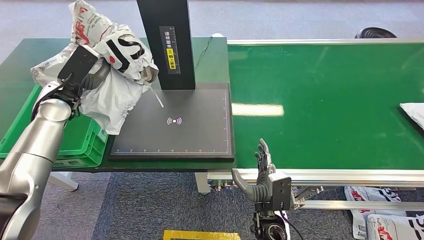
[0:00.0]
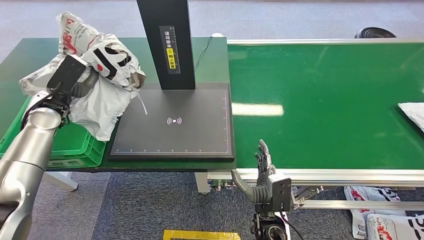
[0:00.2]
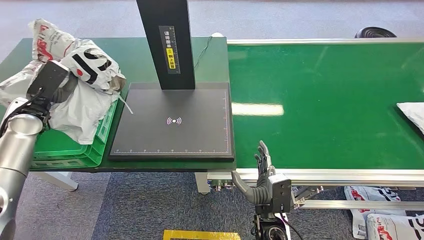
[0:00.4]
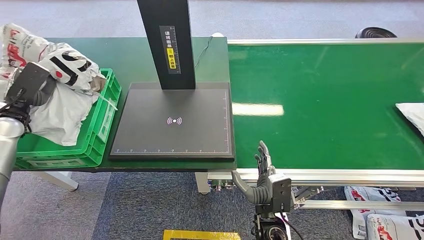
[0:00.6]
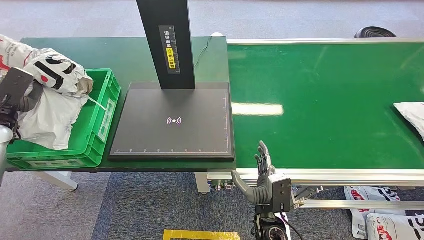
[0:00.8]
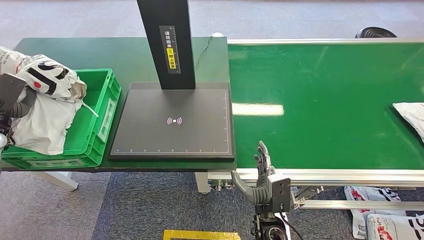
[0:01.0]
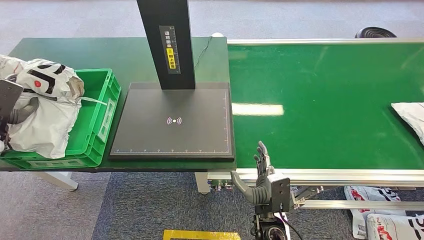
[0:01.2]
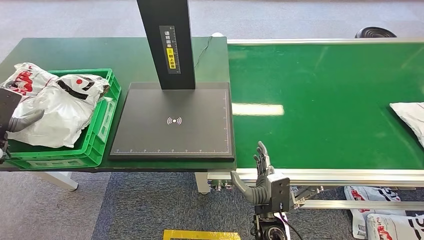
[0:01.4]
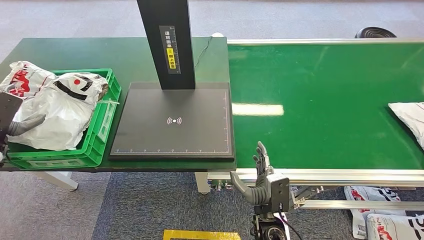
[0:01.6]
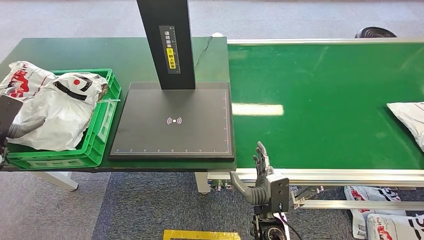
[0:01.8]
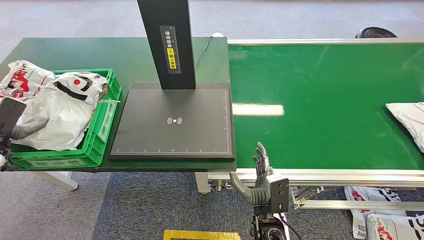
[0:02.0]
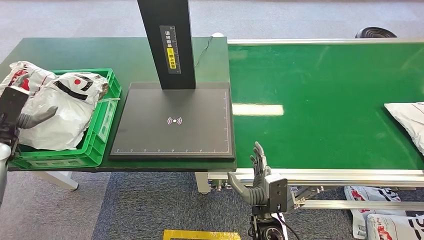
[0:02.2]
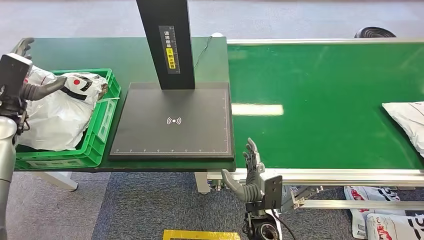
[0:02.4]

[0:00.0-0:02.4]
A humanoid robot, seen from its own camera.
Step, 0:00.0 to 0:02.2: Place the package into the parcel locker.
0:00.0 to 0:01.2: The left hand heads to the left and backward, covering approximately 20 cm.
0:01.2 to 0:02.4: The left hand heads to the right and upward, covering some 10 cm.
